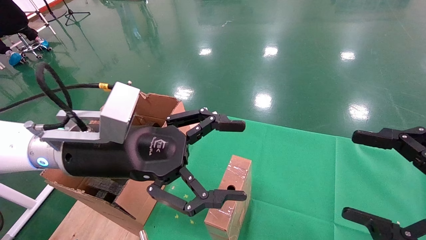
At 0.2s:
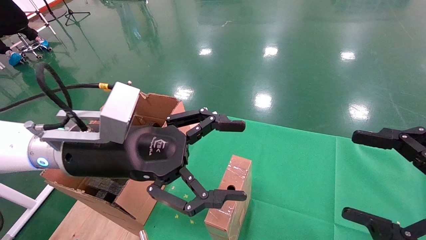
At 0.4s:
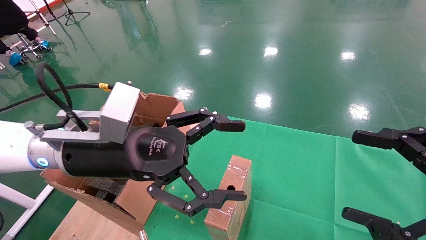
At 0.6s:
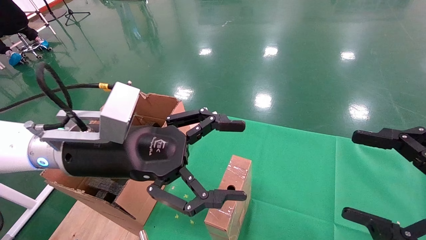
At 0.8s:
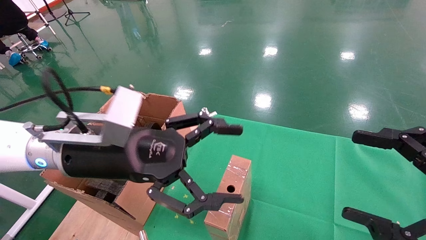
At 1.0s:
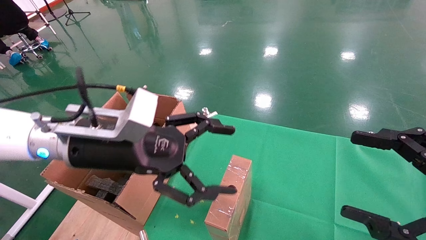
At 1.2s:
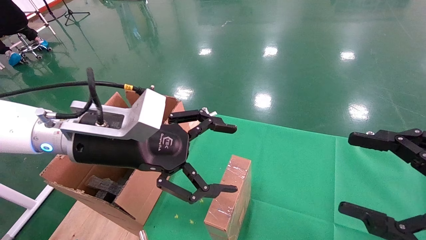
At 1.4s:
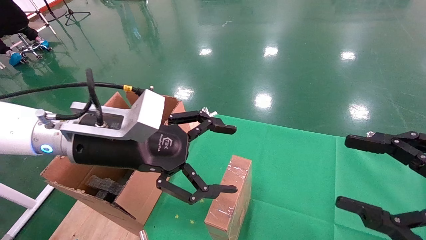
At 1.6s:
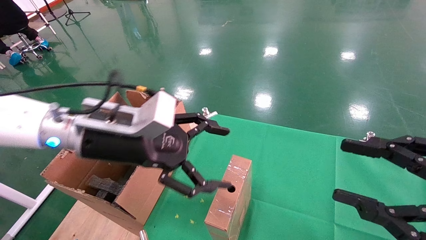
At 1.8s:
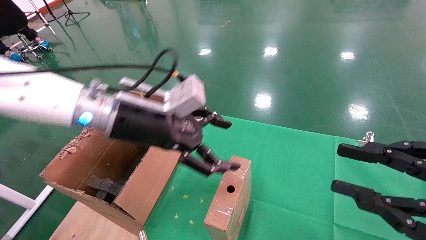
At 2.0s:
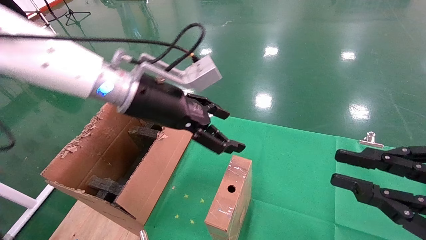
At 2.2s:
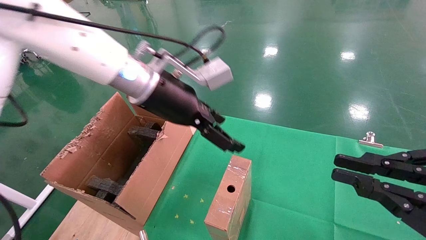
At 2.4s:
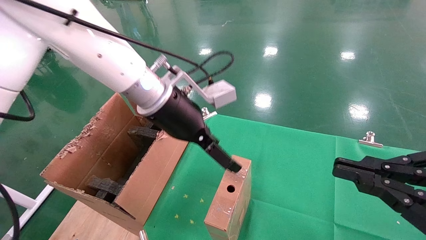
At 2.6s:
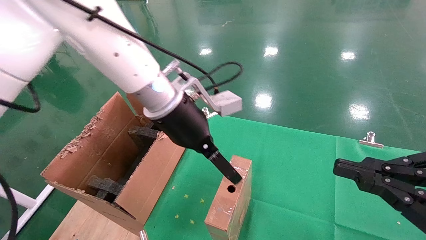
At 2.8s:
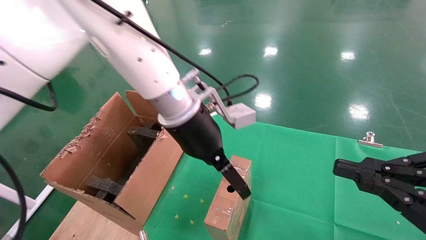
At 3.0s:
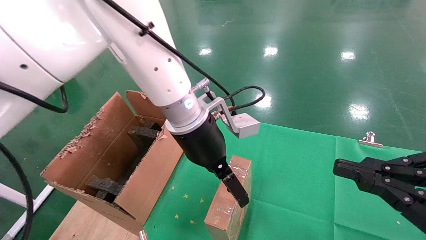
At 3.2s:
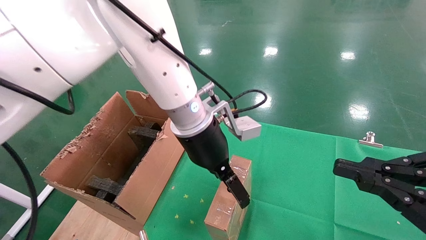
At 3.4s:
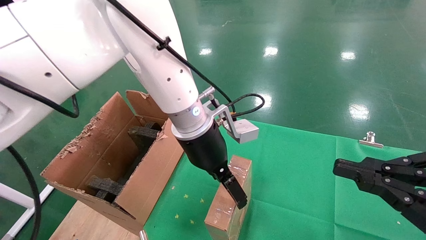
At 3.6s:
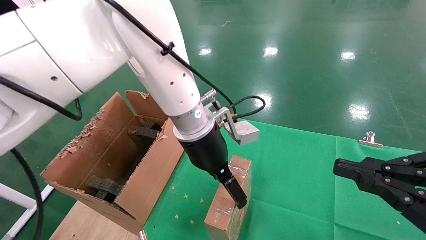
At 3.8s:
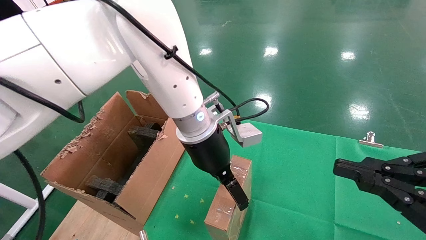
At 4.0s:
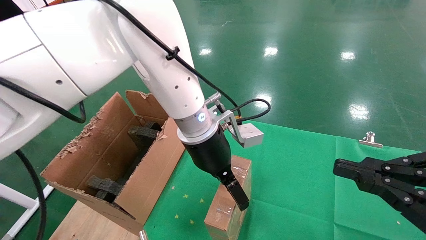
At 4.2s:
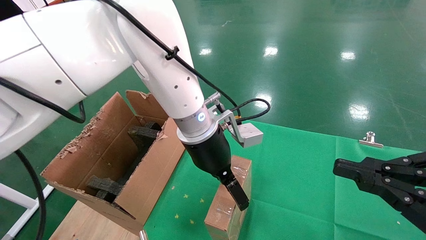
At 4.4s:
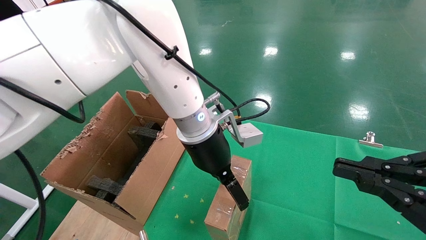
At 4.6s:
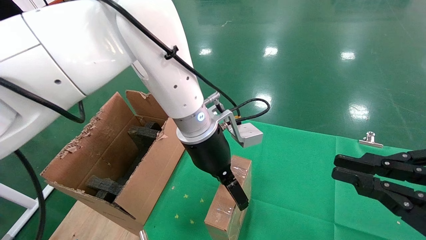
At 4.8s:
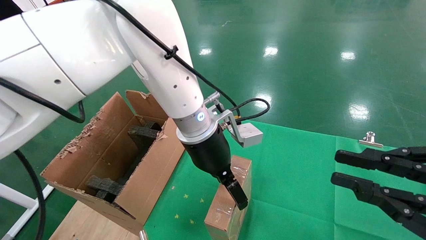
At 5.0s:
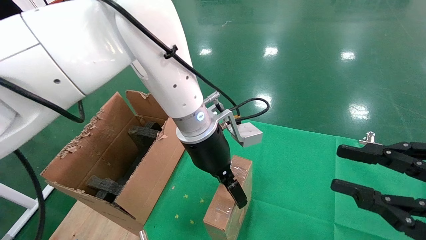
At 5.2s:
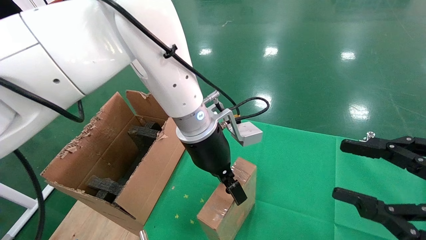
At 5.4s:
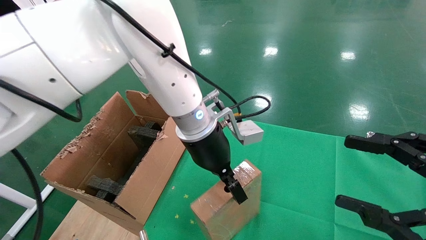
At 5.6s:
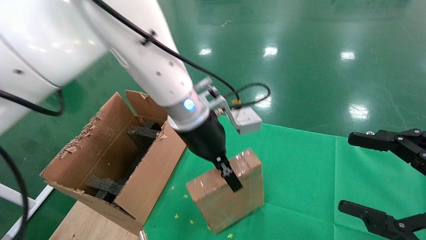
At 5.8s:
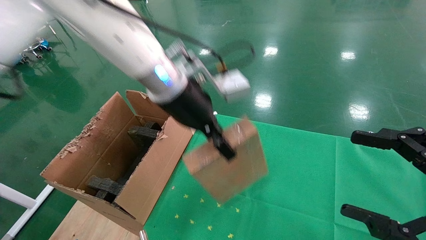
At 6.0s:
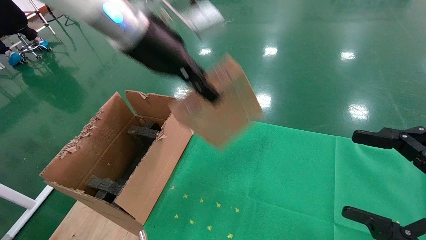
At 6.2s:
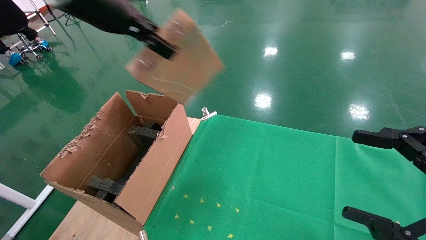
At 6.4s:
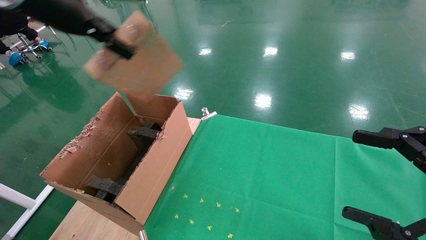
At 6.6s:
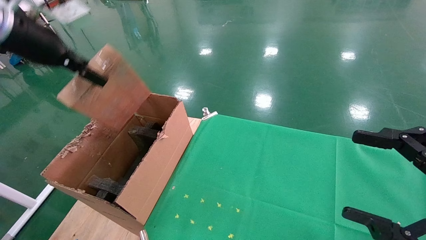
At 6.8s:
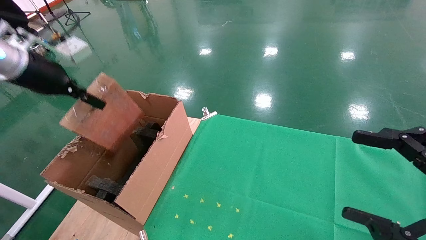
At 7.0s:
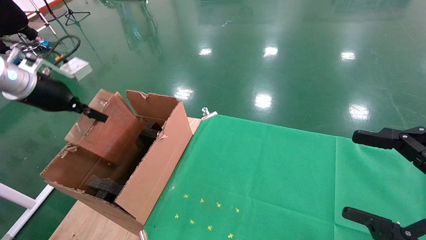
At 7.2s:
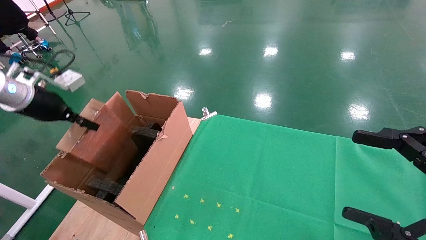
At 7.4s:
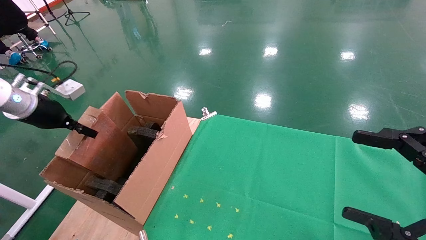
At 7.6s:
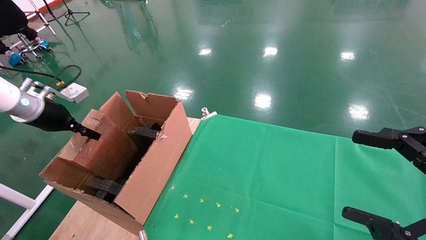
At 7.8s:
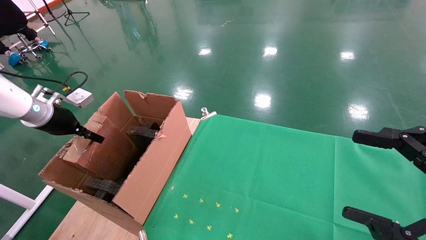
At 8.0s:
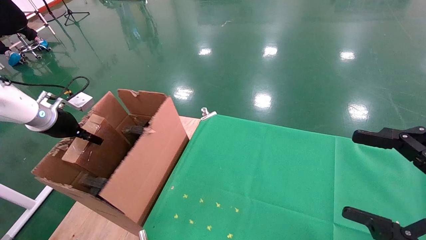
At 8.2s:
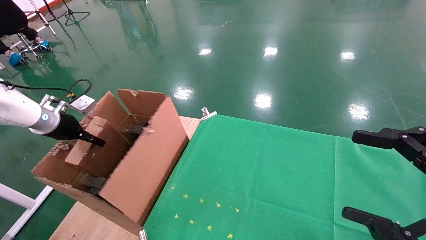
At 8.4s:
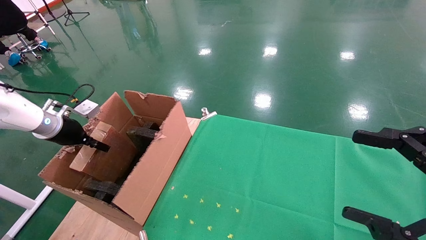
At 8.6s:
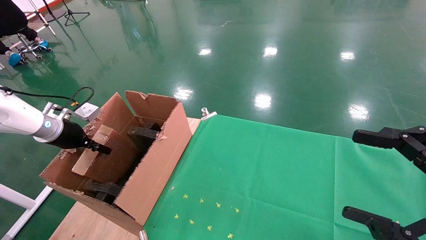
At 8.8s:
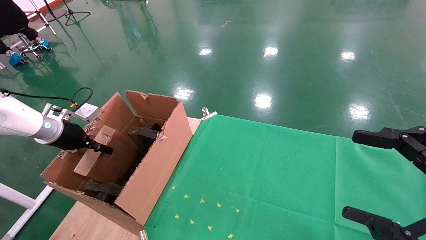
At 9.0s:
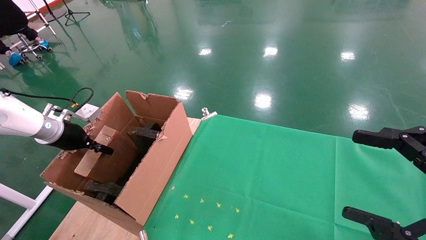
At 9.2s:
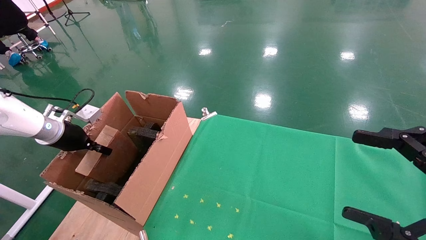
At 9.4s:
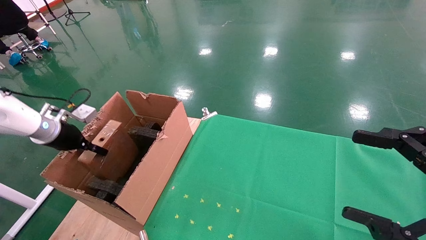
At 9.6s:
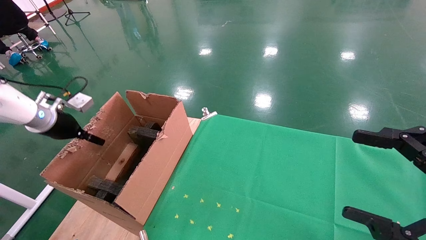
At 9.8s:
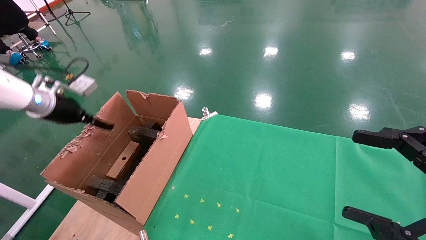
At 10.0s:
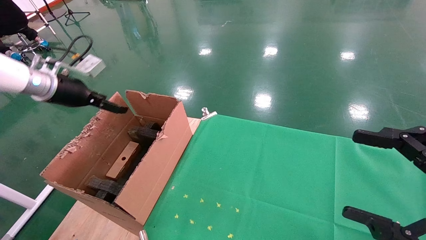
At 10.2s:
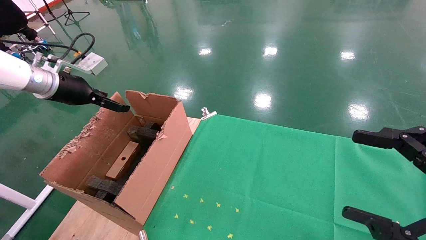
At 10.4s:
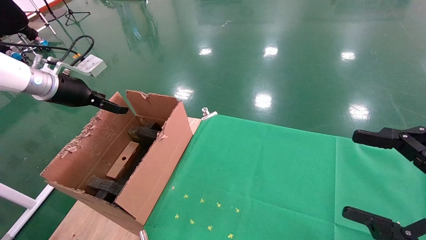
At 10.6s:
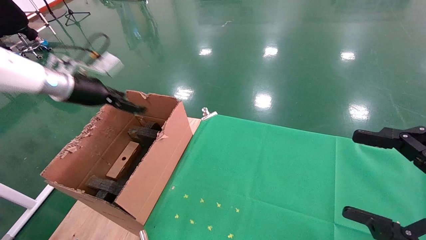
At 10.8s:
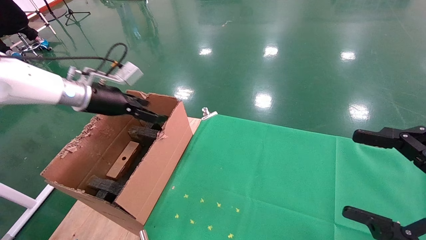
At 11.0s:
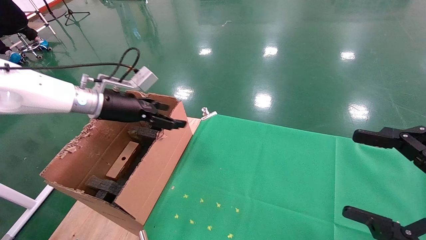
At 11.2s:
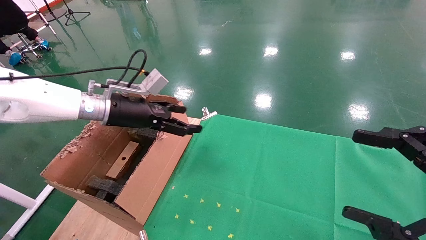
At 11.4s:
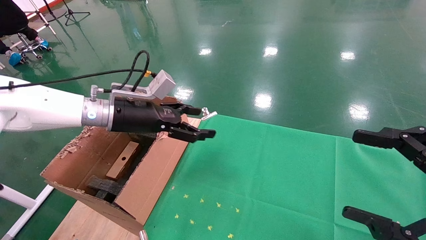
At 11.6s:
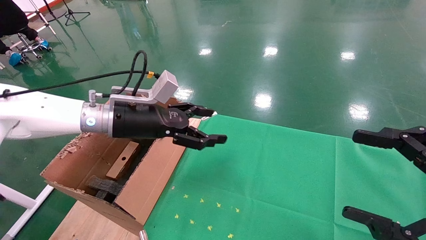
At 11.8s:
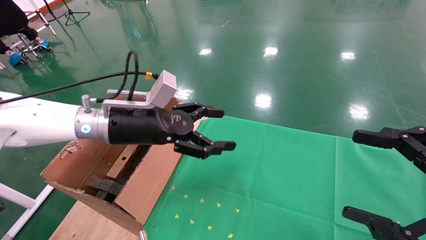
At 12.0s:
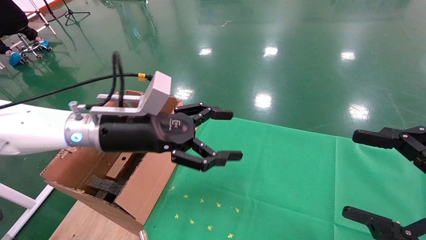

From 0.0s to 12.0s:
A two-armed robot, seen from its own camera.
Task of the whole recording: using a robotic arm to pick up a cardboard box and palace it the carton.
Step, from 1.0s to 5.2s: Pick up the mouse and the power cord paper box.
Step, from 5.4s to 9.4s: Place the mouse and the power cord paper box into the container.
From 0.0s to 1.6s: The right gripper closes. The left gripper heads forward, covering about 5 cm.
From 1.6s to 3.0s: The left gripper goes approximately 15 cm to the right and forward. The right gripper closes.
From 3.0s to 4.4s: There are only small adjustments of the grippers.
From 4.4s to 6.0s: The left gripper travels upward and to the left by roughly 20 cm, and closes up. Meanwhile the right gripper opens.
From 6.0s to 7.6s: The left gripper moves to the left and downward, about 35 cm.
From 7.6s to 9.0s: The left gripper shifts roughly 5 cm downward.
From 9.0s to 10.4s: The left gripper goes about 10 cm upward and to the right, and opens.
From 10.4s to 12.0s: The left gripper goes approximately 25 cm to the right and backward.

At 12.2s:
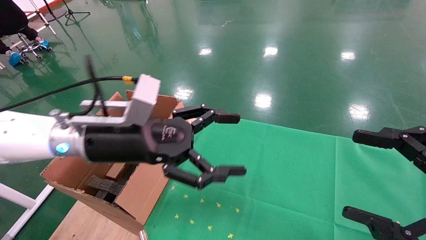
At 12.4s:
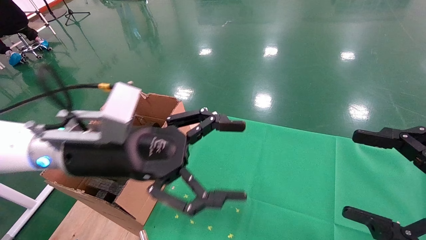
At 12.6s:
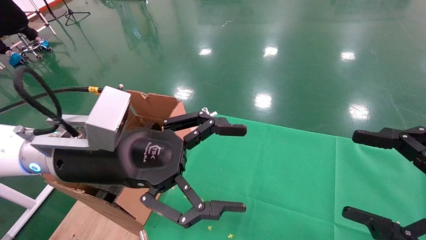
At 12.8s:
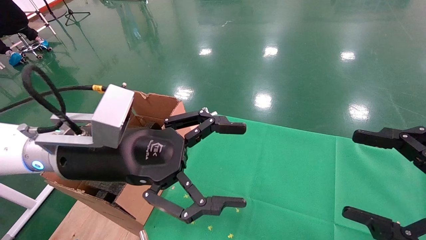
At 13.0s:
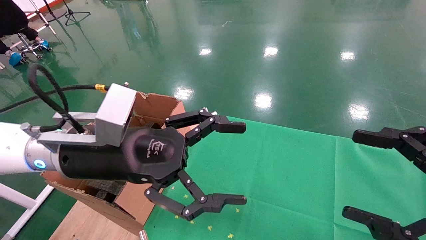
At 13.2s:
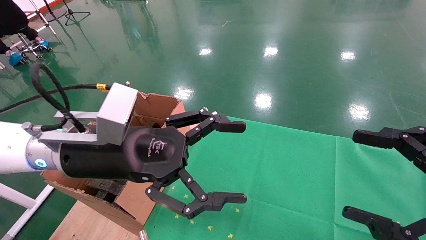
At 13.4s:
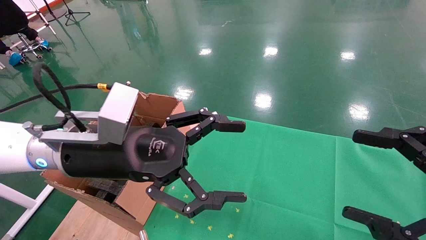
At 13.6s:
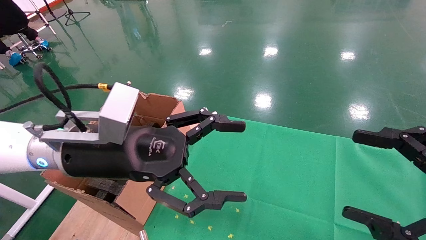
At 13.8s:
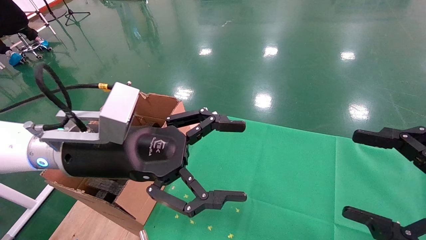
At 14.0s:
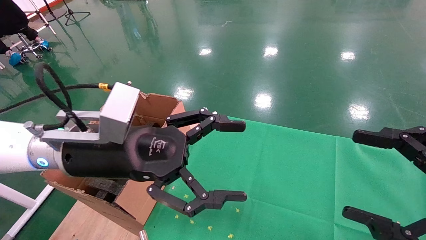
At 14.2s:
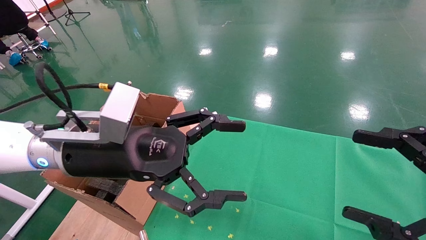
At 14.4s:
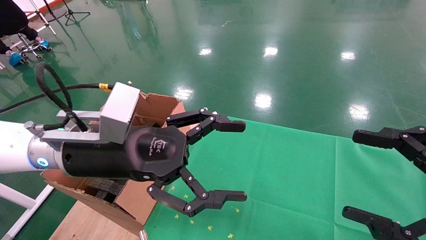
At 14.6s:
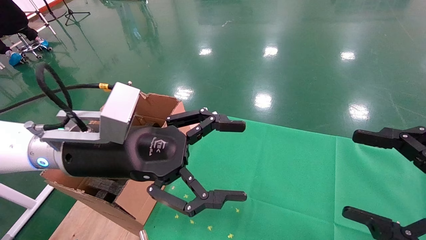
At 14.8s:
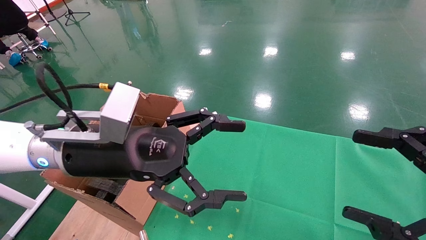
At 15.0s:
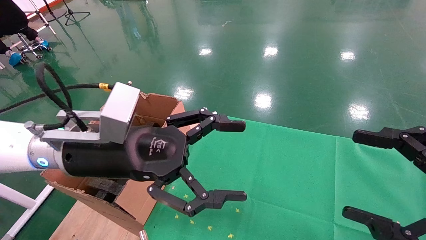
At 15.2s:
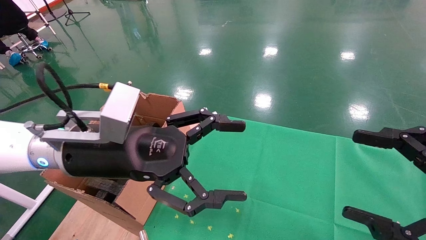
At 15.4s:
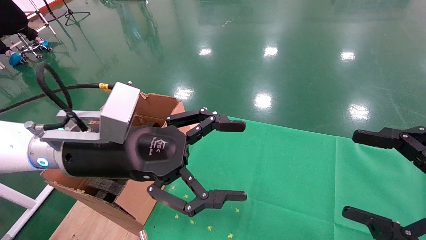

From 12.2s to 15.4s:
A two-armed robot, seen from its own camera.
Task of the whole recording: using a robotic arm to pick up a cardboard box and palace it the carton.
From 12.2s to 13.8s: There are only small adjustments of the grippers.
From 13.8s to 15.4s: Both grippers stay about where they are.

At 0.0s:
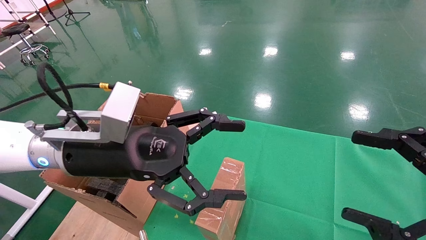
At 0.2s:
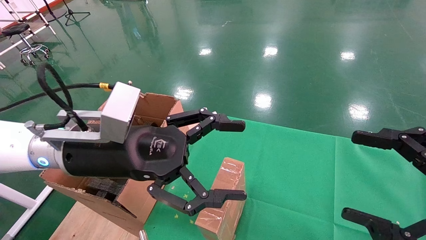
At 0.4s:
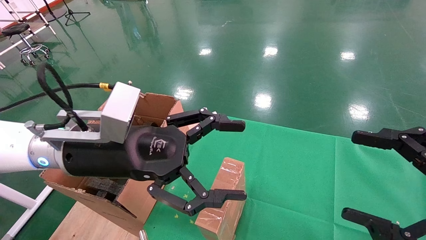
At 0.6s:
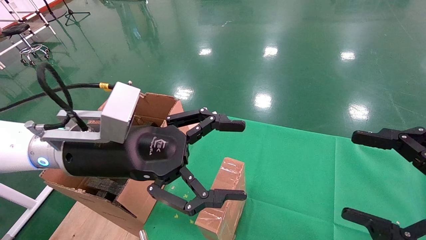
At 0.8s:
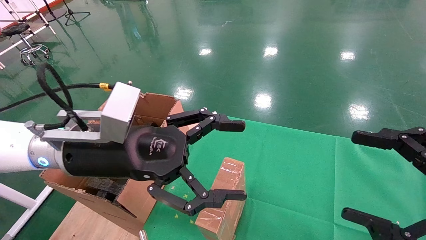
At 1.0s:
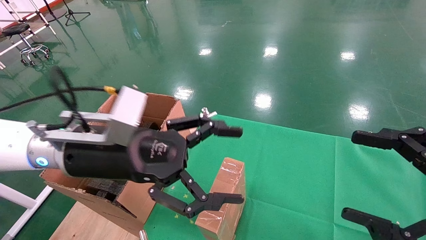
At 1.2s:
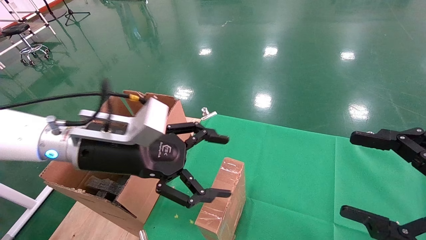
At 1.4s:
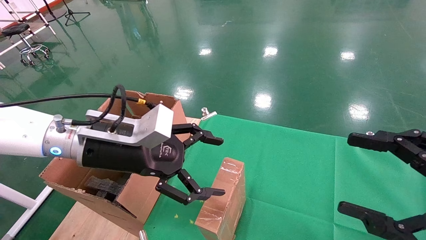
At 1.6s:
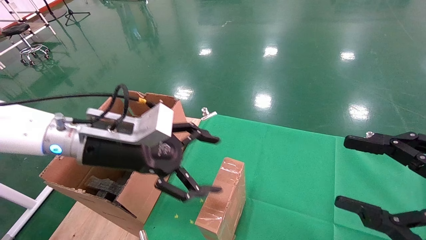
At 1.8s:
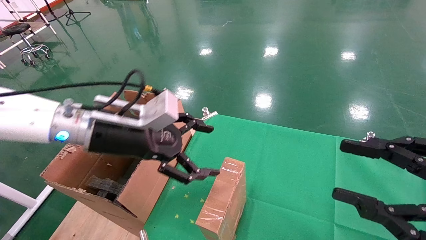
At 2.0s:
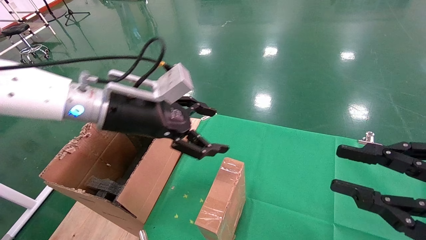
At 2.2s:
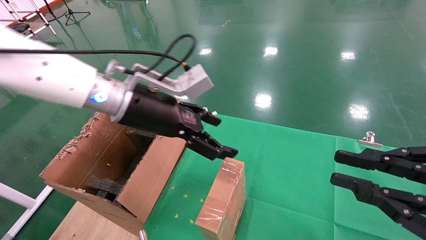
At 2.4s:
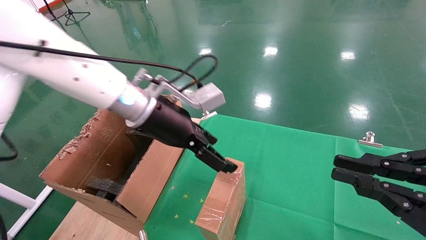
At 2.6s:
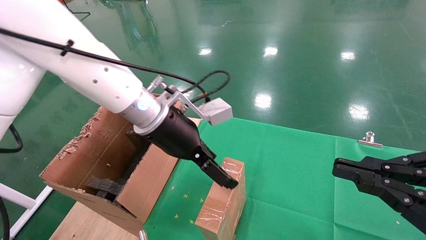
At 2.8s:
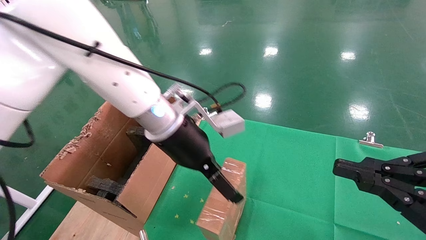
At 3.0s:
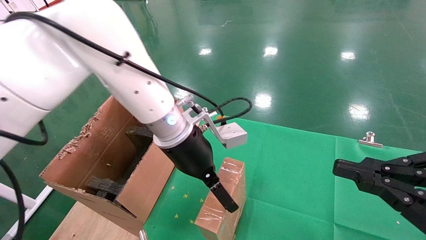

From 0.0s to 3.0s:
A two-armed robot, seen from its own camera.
Task of the whole recording: using a robotic arm to pick up a cardboard box and palace it the carton.
From 1.6s to 3.0s: The right gripper closes up. Meanwhile the left gripper shifts about 15 cm to the right and forward.
